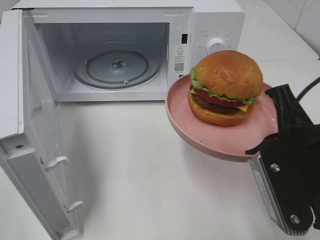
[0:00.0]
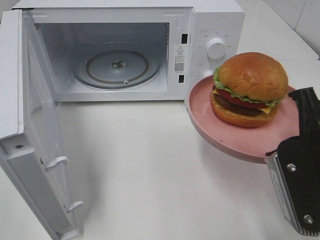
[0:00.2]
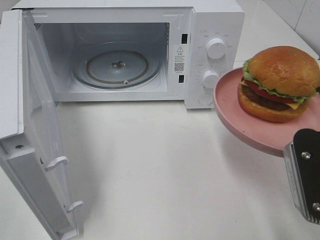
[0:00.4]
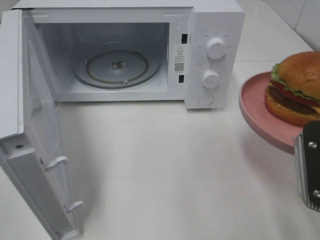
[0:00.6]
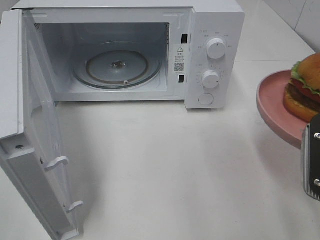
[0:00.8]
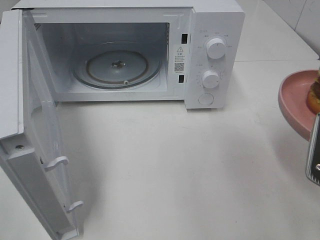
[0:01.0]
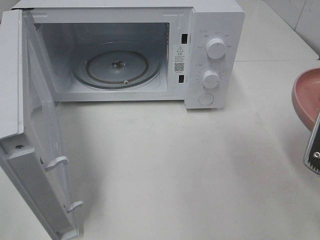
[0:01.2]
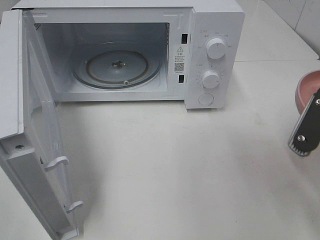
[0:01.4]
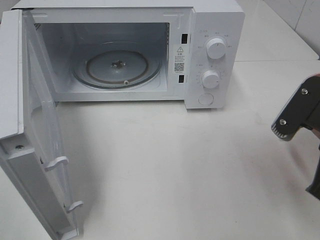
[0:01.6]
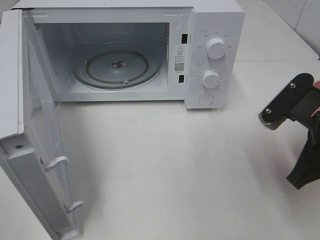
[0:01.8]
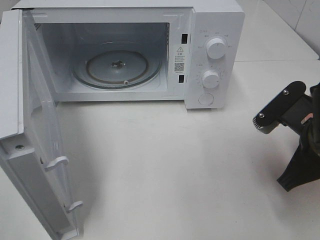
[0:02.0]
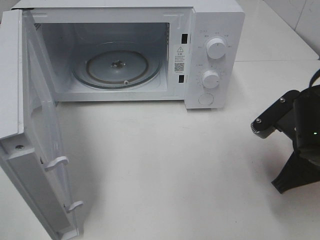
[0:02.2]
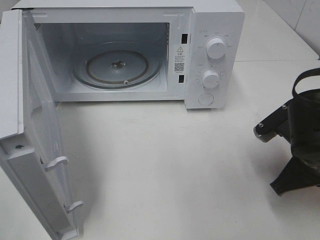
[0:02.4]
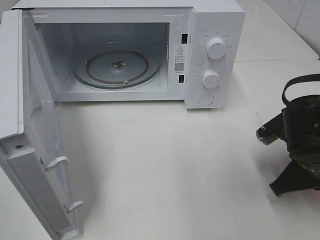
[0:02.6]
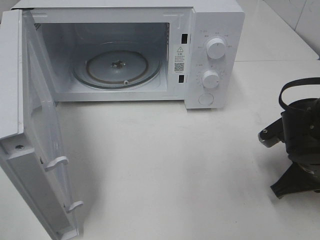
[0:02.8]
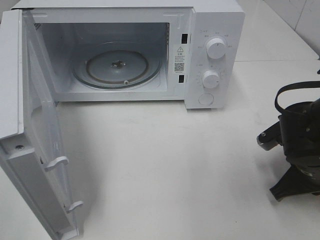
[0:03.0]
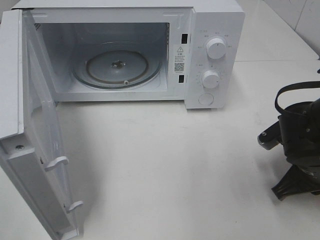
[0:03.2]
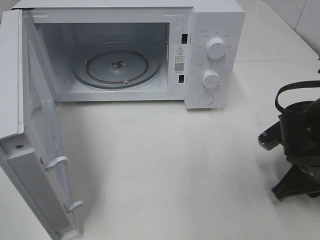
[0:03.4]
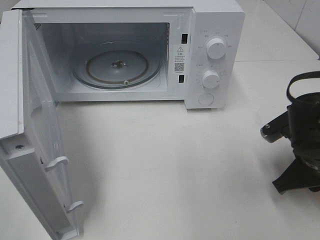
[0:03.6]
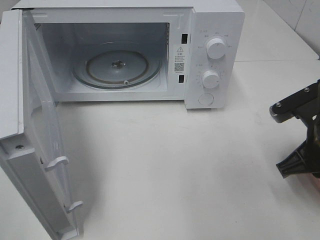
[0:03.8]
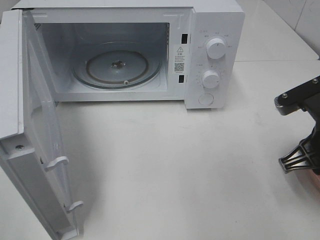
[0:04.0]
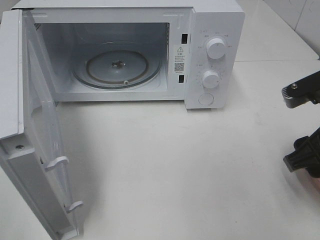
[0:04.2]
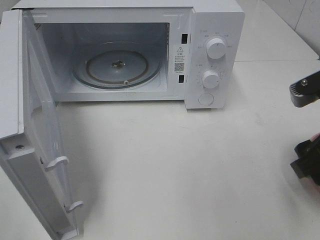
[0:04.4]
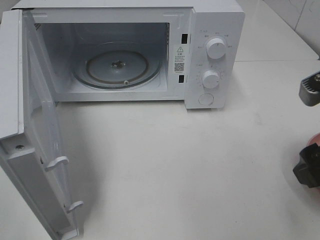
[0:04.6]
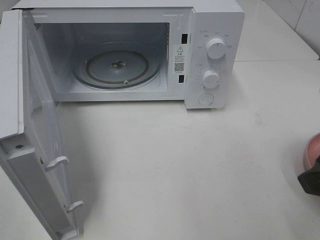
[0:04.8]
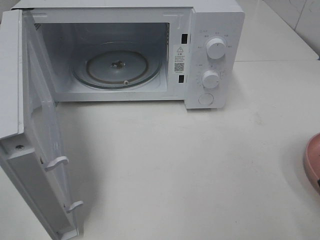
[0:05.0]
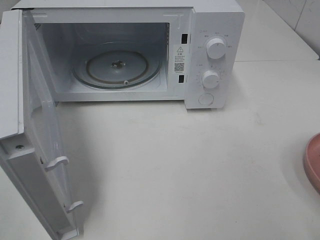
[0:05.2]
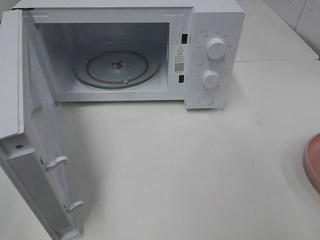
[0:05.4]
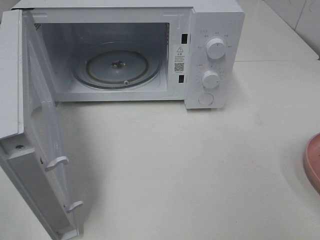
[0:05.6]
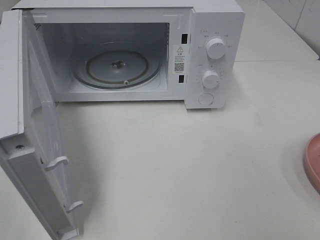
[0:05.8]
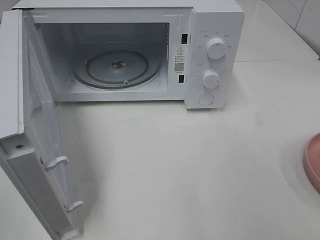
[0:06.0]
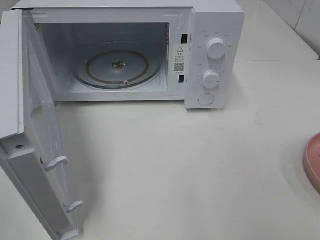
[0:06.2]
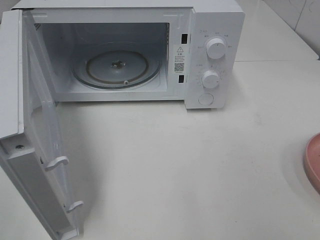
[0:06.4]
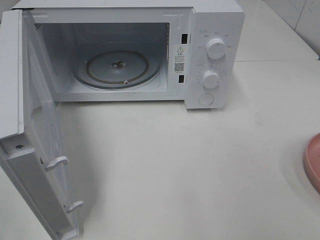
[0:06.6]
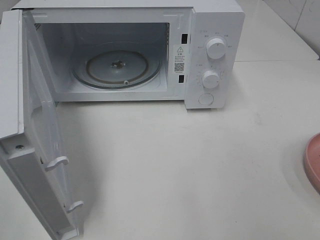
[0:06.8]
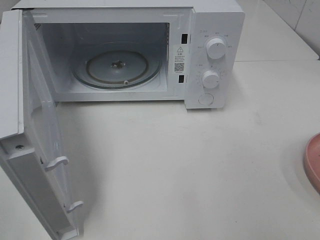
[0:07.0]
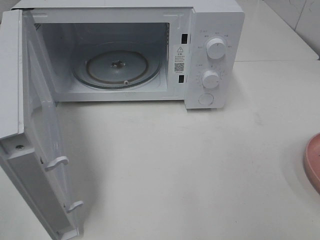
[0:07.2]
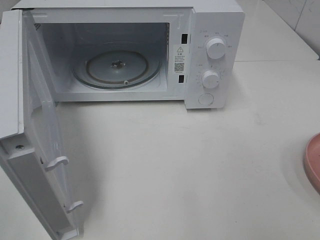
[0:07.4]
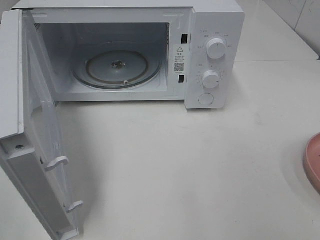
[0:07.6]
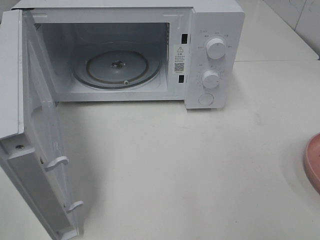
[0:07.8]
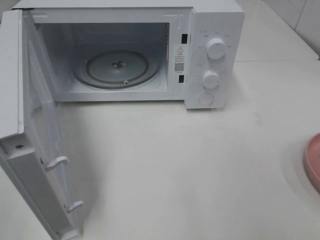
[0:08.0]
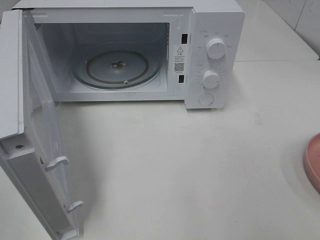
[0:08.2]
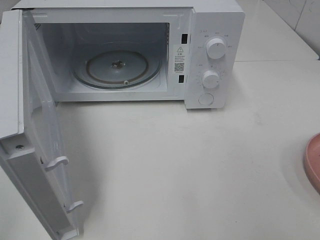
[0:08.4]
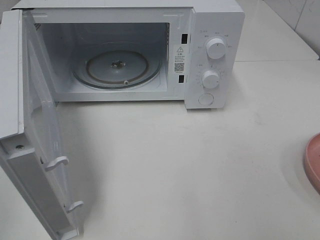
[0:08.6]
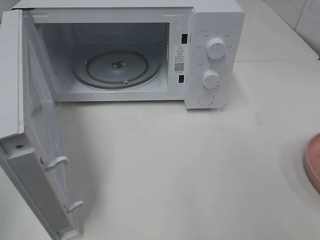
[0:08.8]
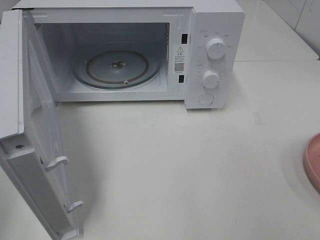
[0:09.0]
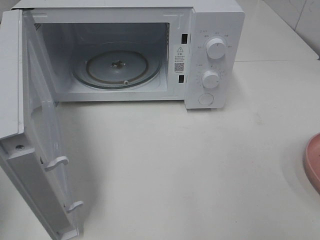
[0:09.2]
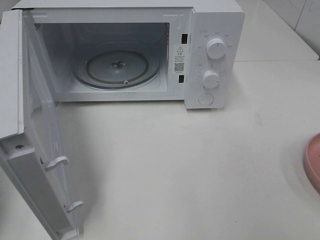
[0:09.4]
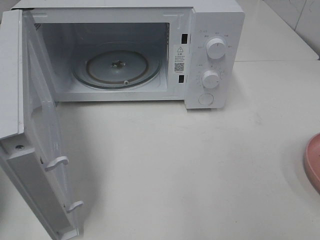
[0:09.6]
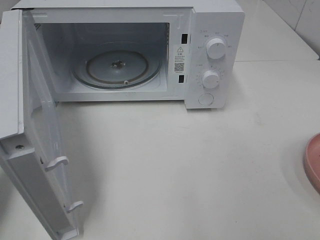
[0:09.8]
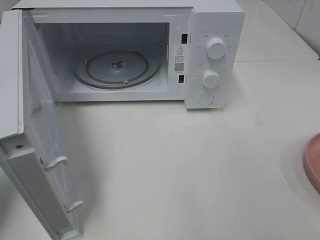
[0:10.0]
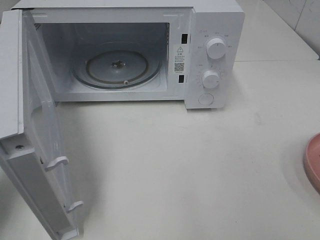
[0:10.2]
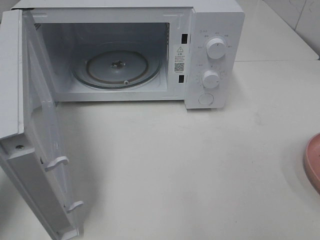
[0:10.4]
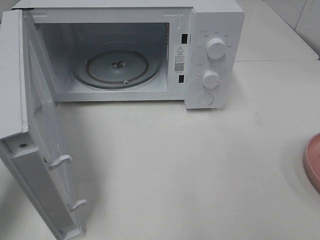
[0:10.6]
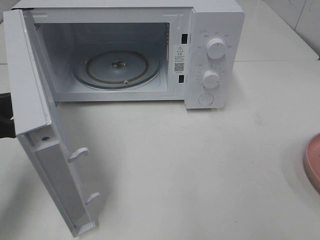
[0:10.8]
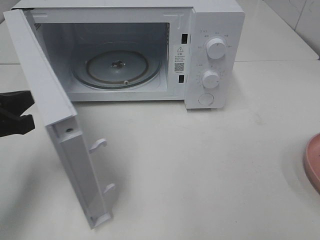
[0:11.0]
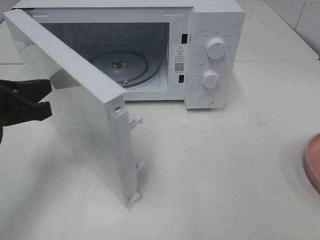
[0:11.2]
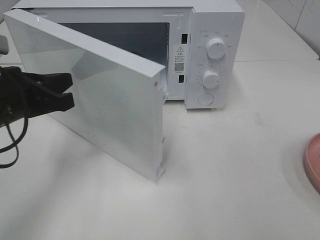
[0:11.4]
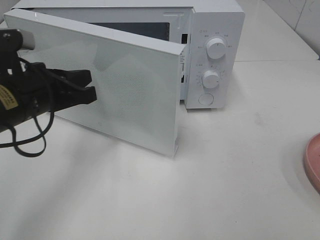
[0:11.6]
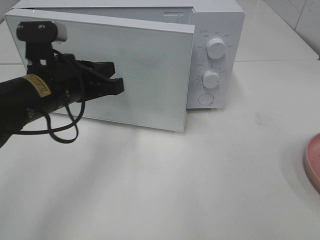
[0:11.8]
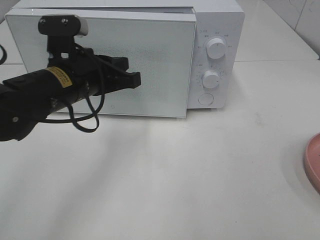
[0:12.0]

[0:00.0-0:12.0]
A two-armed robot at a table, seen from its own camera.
Task of the whole recording: Heat the burger.
Step, 0:00.0 to 0:03.6: Right hand: place the plate on the table.
0:01.6 to 0:03.0: The right gripper moves downward, roughly 10 cm.
0:03.0 to 0:04.4: The right gripper heads upward, covering roughly 10 cm, and opens up.
0:04.4 to 0:06.0: The right gripper travels backward, to the right and upward by some 15 cm.
0:09.0 to 0:10.4: The left gripper heads forward and downward, covering some 15 cm.
0:10.4 to 0:12.0: The left gripper goes roughly 20 cm to the right and forward.

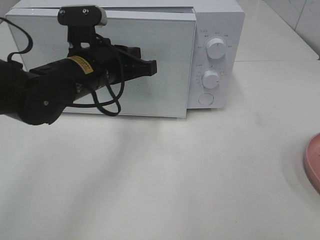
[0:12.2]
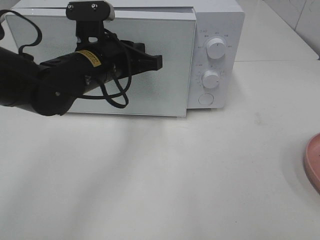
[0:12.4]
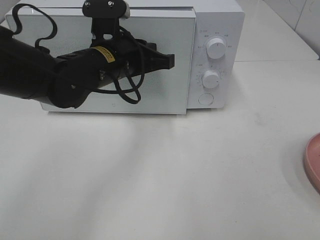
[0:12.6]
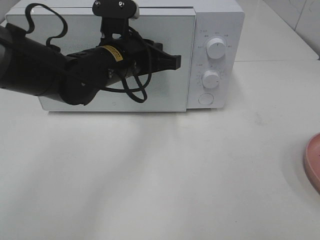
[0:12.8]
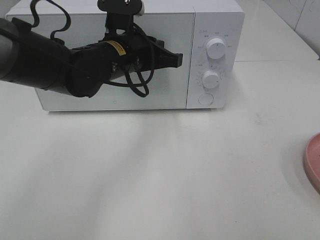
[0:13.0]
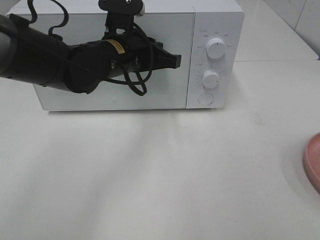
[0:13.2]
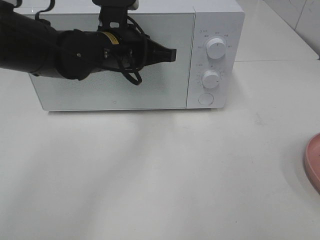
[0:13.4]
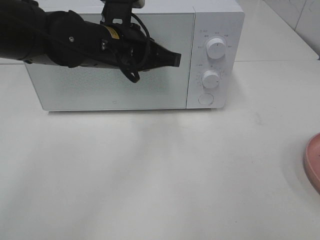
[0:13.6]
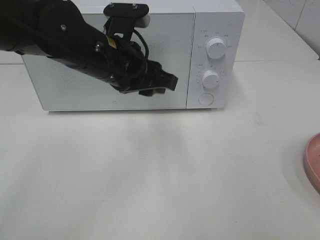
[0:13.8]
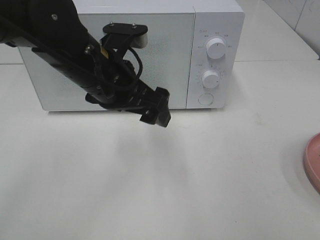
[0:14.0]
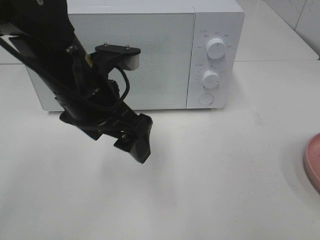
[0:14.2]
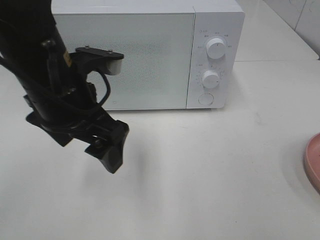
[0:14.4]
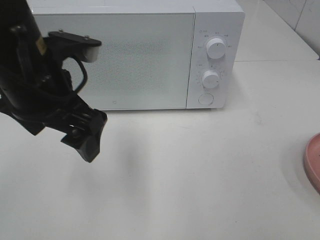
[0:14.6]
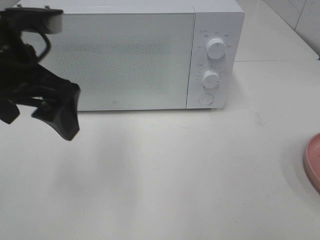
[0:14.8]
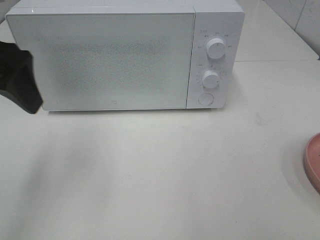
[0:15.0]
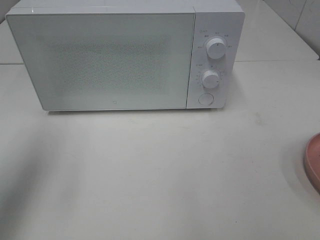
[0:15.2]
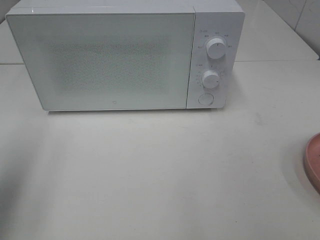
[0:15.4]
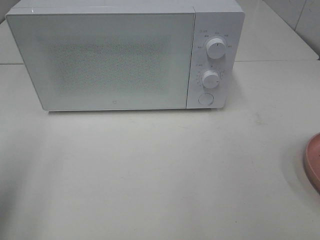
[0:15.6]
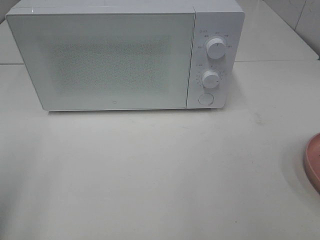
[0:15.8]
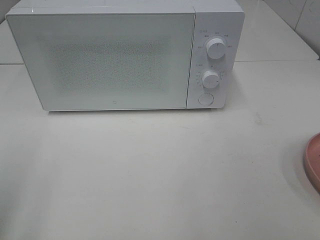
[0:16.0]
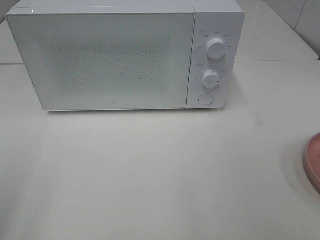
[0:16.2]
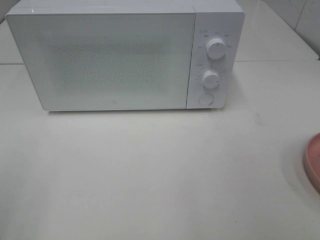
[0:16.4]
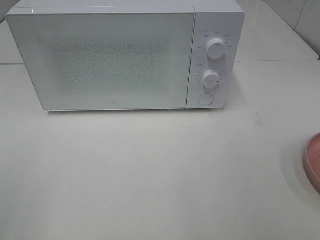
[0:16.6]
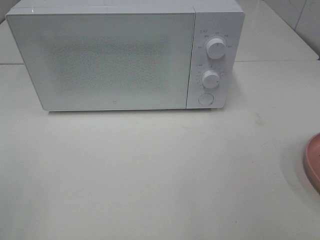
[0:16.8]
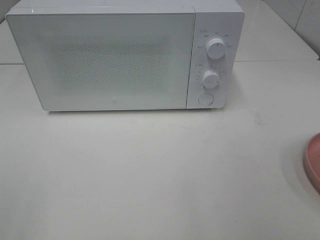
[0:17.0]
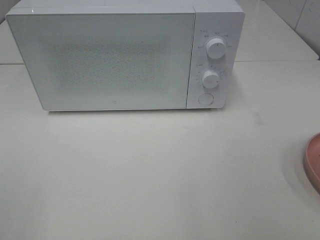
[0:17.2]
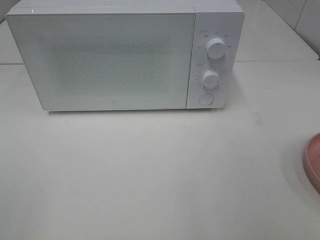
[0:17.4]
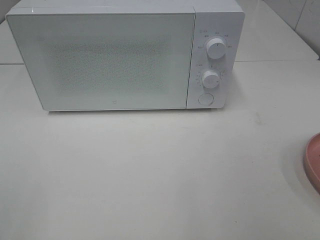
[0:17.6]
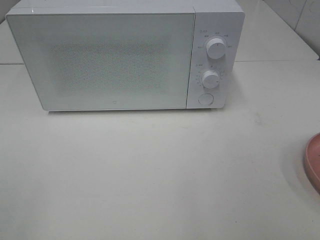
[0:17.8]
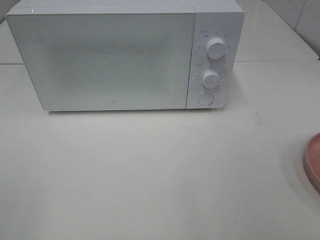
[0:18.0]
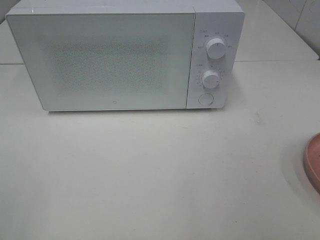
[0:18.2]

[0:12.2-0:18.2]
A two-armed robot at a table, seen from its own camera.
Task of the whole recording: Heat the burger.
0:12.2 to 0:13.8: The left gripper opens its fingers.
0:13.8 to 0:15.2: The left gripper moves to the left and upward, approximately 25 cm, and opens up.
0:15.2 to 0:16.6: The left gripper is displaced backward by roughly 20 cm.
